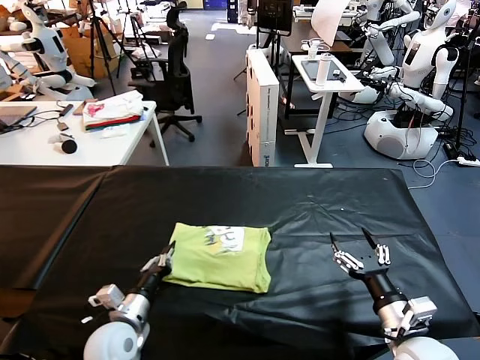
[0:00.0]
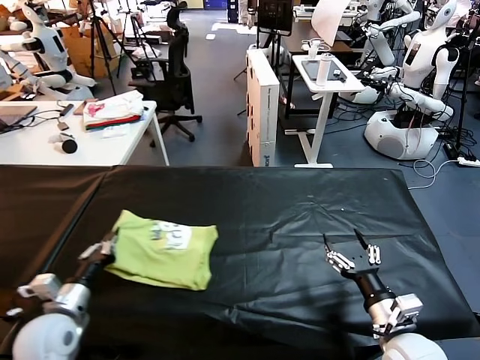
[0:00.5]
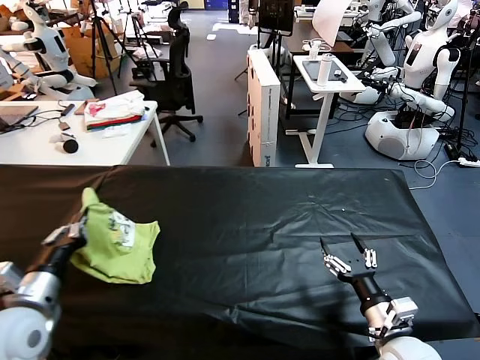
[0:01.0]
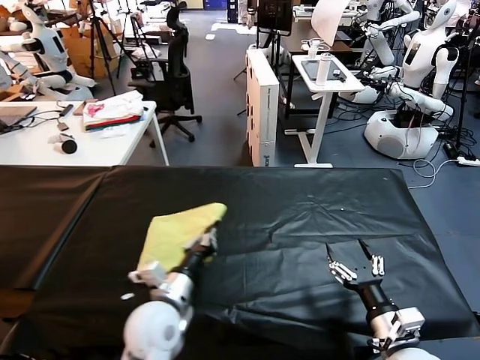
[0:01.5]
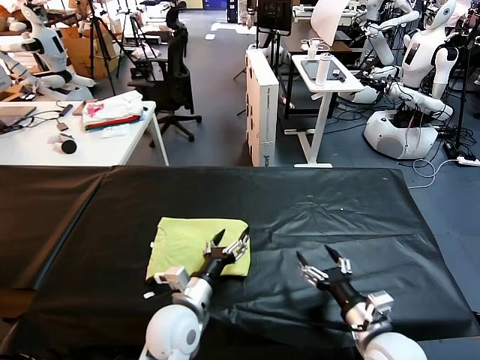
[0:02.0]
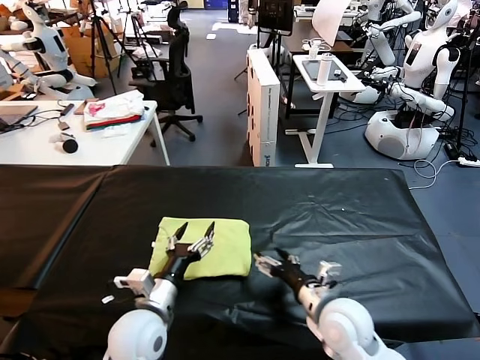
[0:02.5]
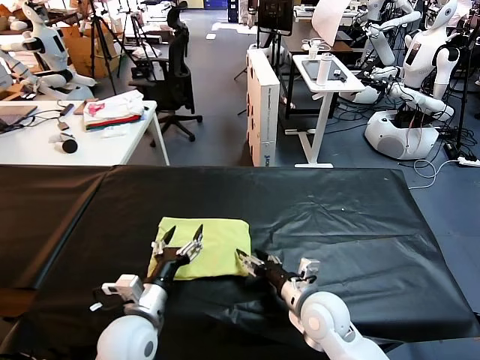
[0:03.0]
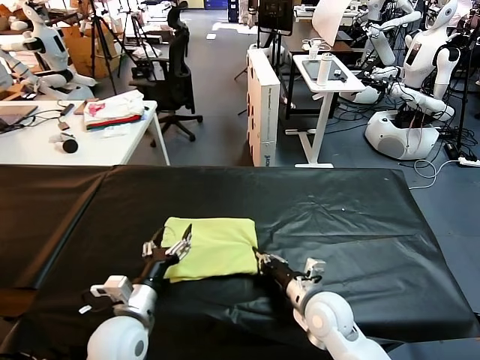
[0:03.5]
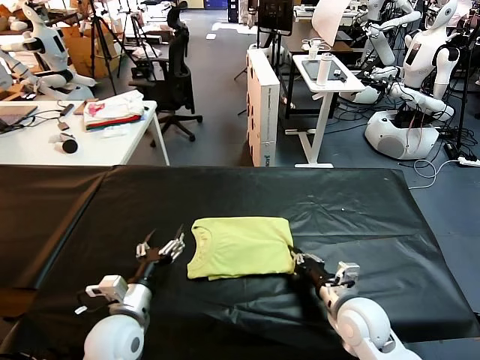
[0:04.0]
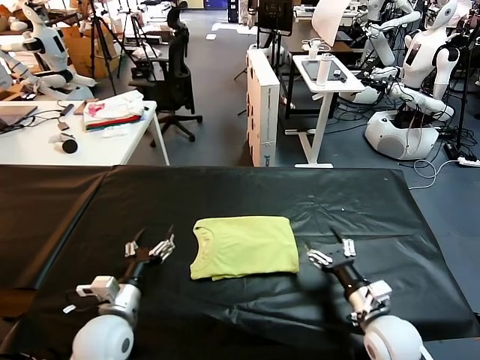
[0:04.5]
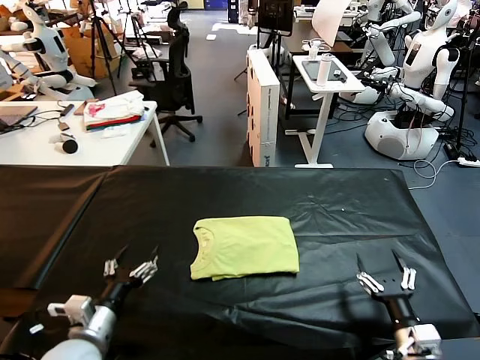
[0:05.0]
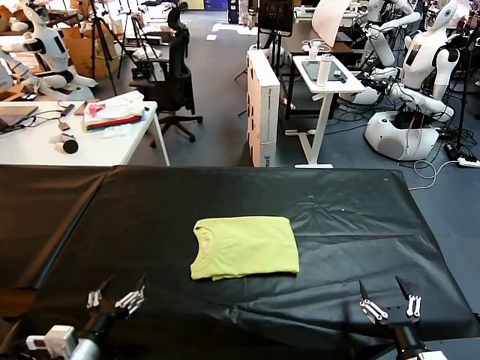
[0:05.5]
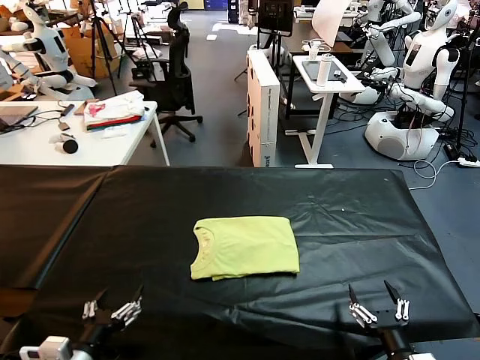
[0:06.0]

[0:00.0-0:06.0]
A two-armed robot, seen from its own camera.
Task of the whole recording: fold and organize the clothes.
Step, 0:02.0 to 0:04.0: Drag the clothes to the center of the table.
0:00.0 to 0:02.0: The left gripper is displaced to the right by roughly 15 cm, and opens up.
0:02.0 to 0:04.0: The left gripper is displaced to the left by roughly 10 cm. Meanwhile the right gripper goes roughly 5 cm forward, moves some 10 cm to the left and comes back, and closes.
0:04.0 to 0:06.0: The left gripper heads backward and to the left, covering some 15 cm; the right gripper travels backward by approximately 15 cm, and opens up.
